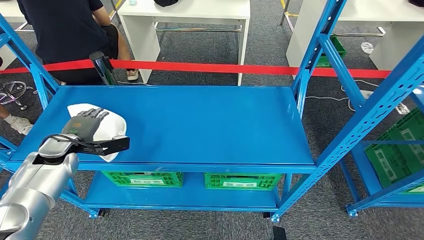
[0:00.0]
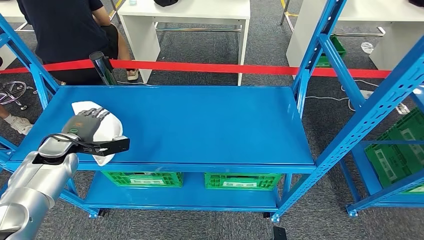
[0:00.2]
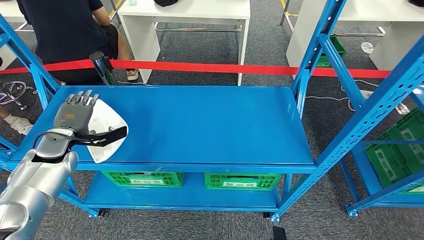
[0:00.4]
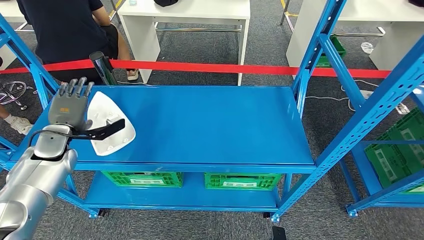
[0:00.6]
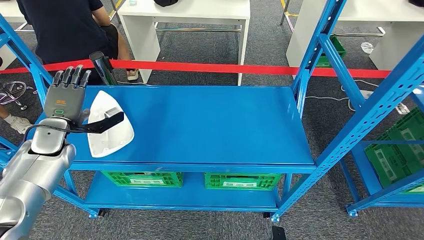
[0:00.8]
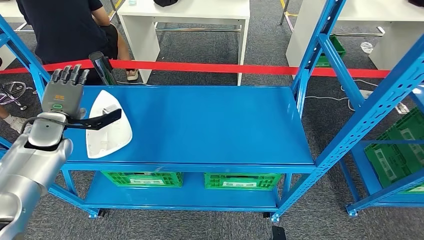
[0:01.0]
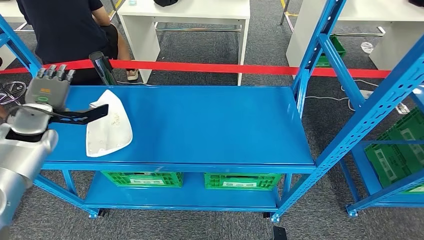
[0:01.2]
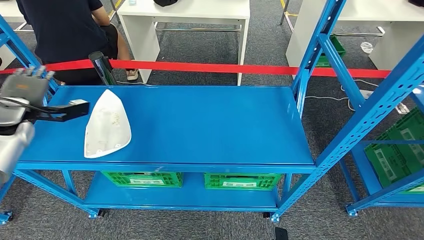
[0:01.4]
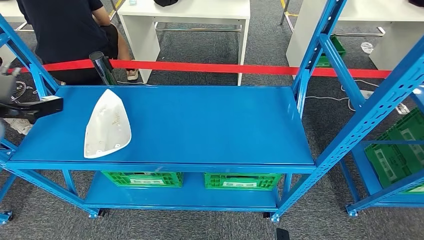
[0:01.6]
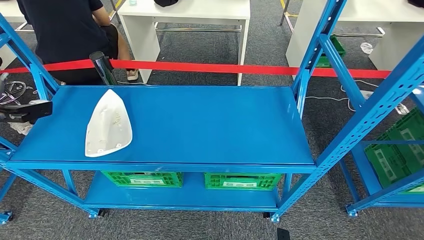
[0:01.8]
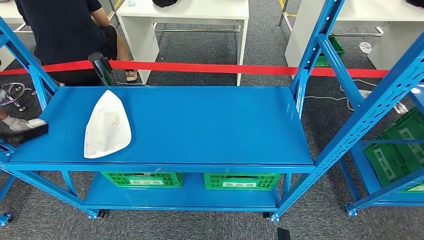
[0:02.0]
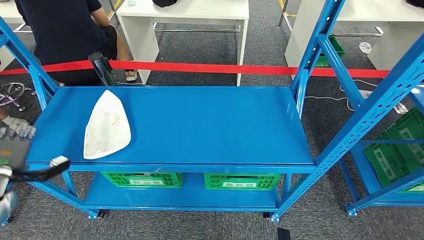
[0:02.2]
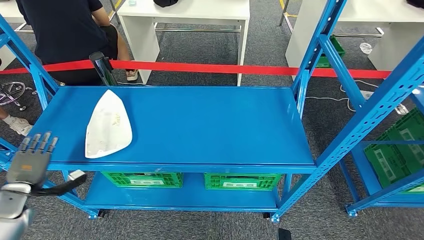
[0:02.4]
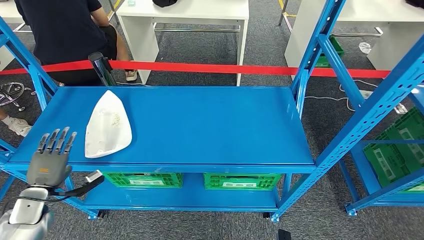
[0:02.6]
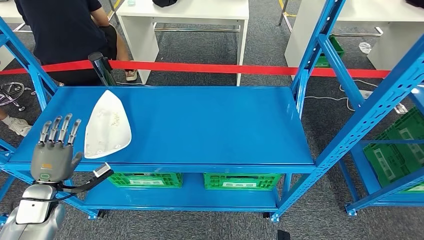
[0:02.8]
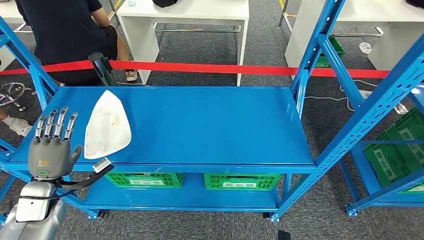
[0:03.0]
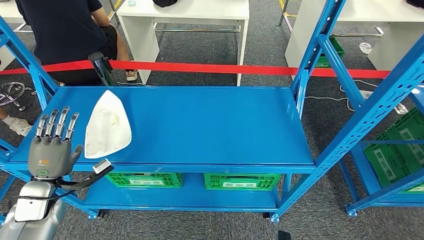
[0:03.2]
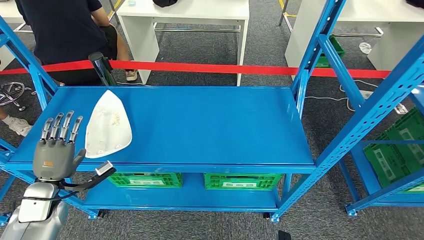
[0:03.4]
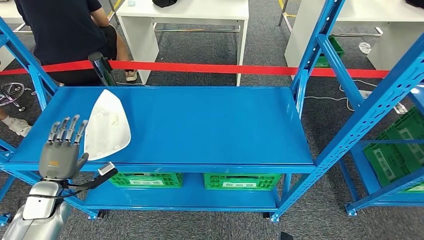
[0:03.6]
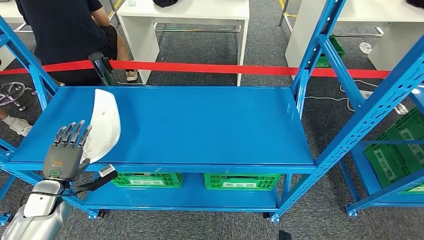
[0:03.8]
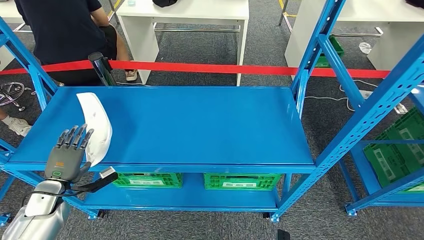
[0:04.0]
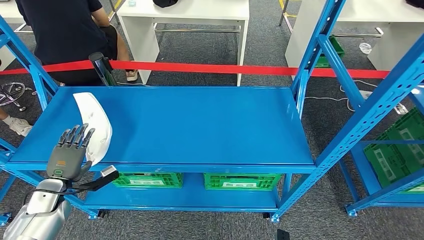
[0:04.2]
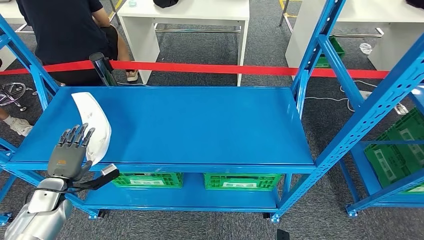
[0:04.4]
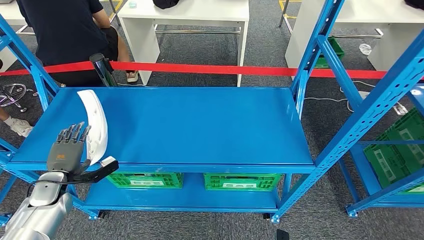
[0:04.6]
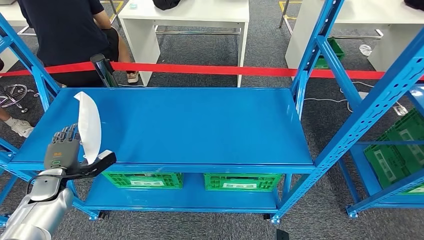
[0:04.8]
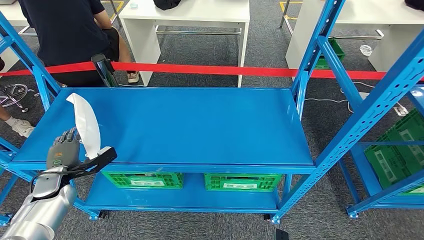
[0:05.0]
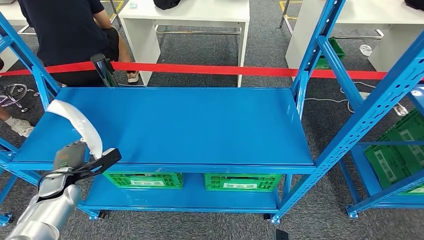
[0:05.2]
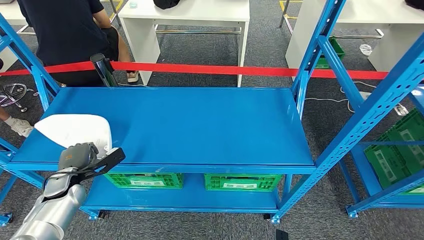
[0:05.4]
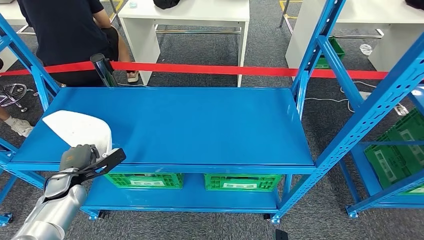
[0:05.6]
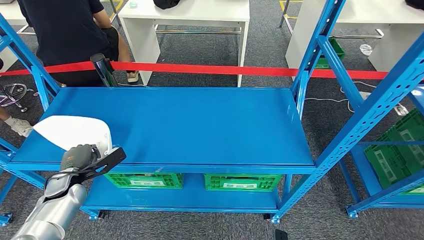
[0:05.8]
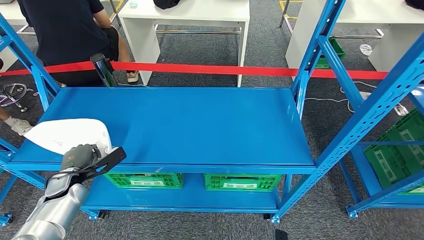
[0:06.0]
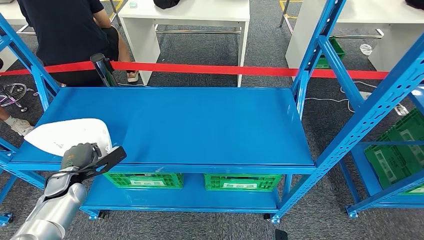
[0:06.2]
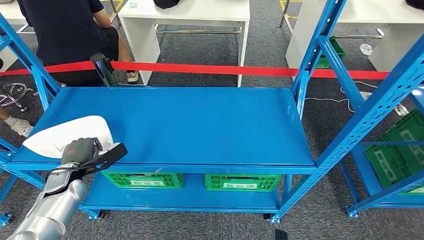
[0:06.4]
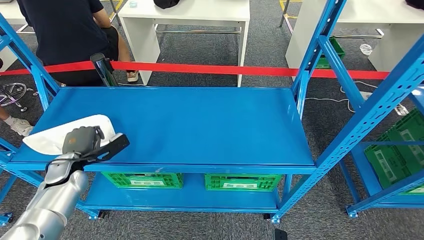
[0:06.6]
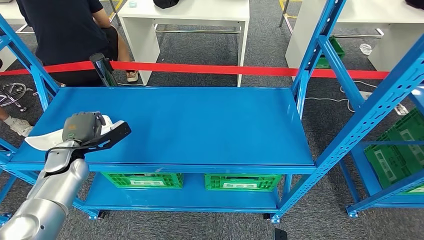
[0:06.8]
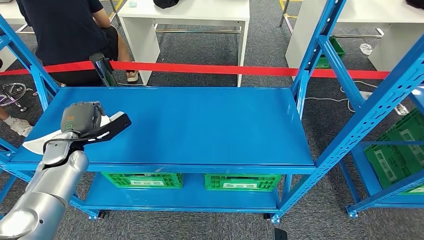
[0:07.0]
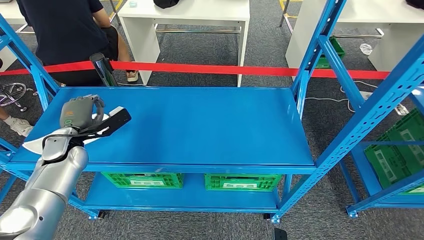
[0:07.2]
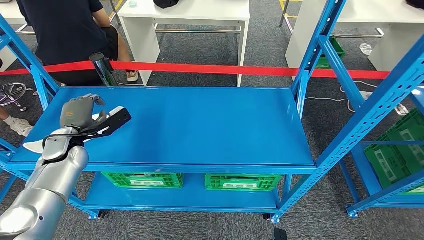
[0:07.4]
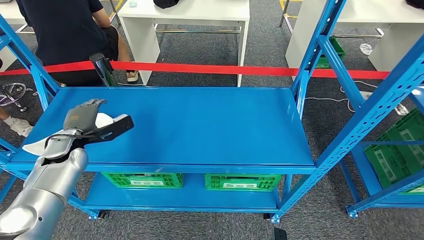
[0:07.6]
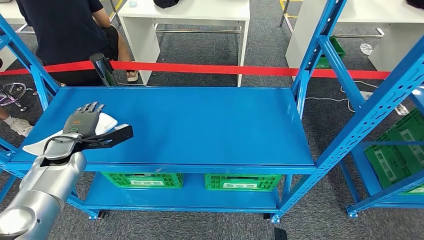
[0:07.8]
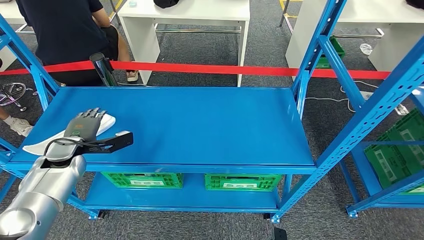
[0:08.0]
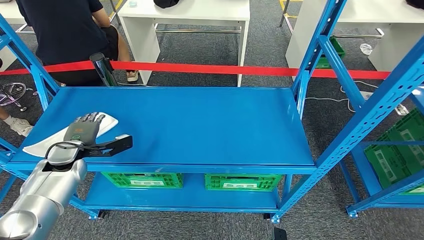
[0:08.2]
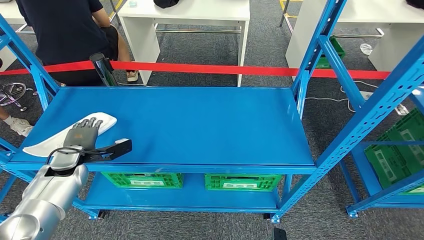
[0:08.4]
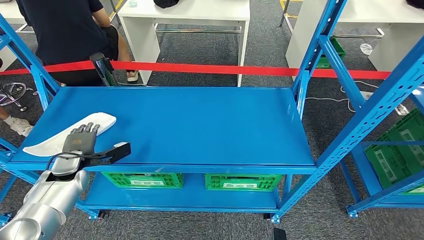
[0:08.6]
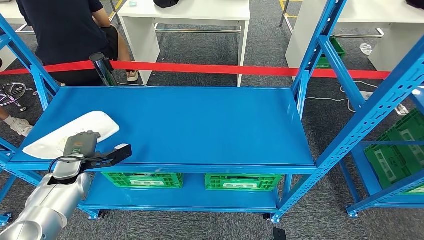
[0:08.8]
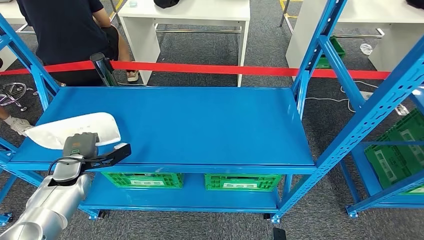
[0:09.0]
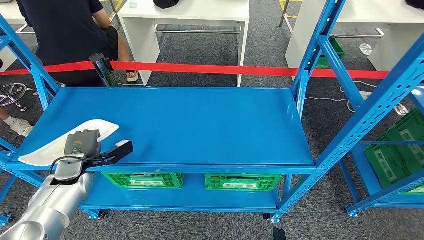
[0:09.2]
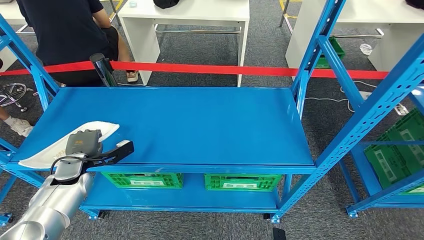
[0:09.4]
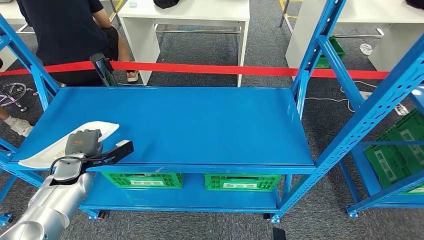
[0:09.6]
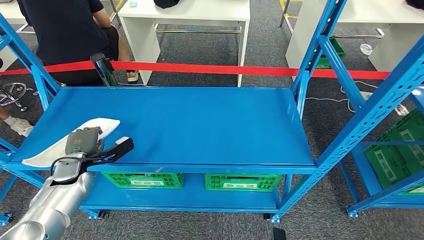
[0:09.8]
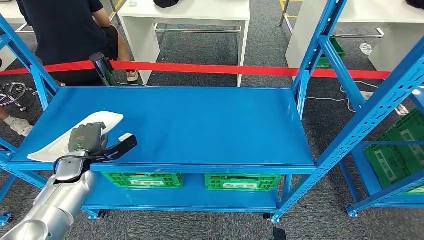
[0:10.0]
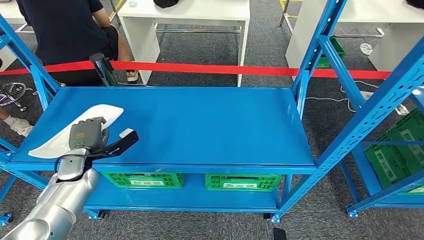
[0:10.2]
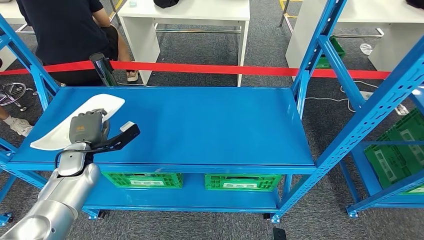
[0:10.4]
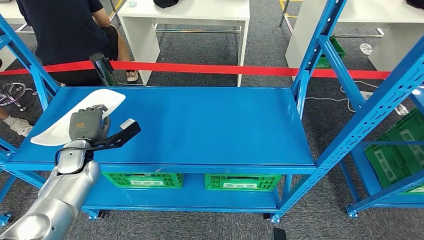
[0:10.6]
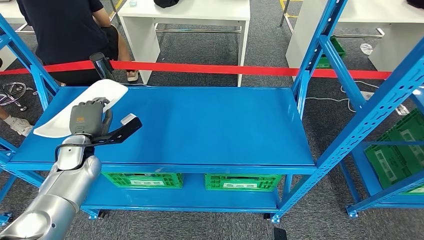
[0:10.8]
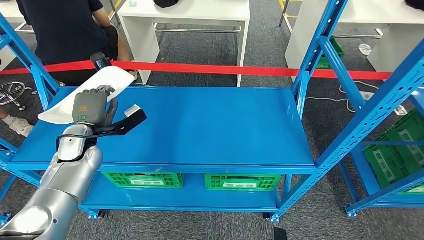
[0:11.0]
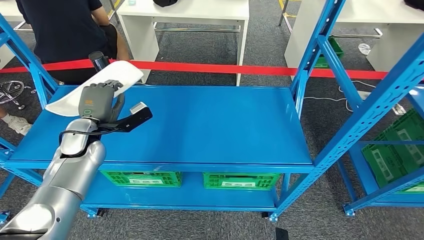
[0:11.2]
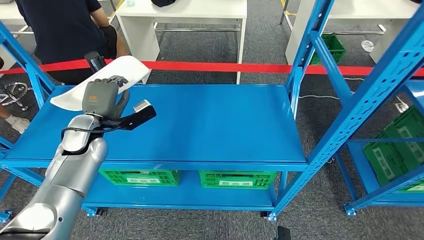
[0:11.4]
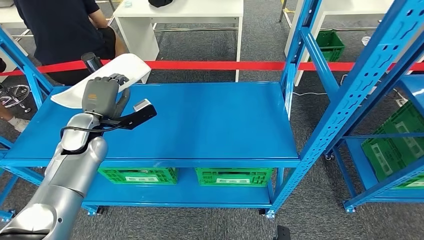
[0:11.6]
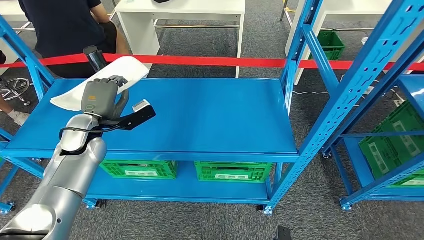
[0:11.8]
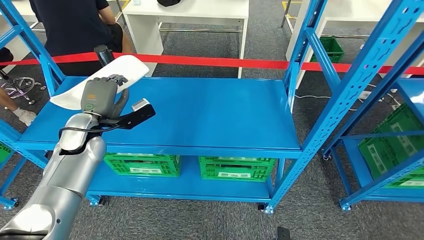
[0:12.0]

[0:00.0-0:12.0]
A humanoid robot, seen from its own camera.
Step, 0:00.0 to 0:11.8: Pick up the small component from the shelf.
0:00.0 to 0:01.6: The left hand goes some 15 cm upward and to the left.
0:01.6 to 0:03.0: The left hand heads downward and backward, covering about 25 cm.
0:03.0 to 0:04.4: The left hand changes place by roughly 5 cm.
0:04.4 to 0:06.0: The left hand moves about 5 cm.
0:06.0 to 0:07.6: The left hand shifts some 10 cm upward and forward.
0:07.6 to 0:09.0: The left hand travels downward by roughly 5 cm.

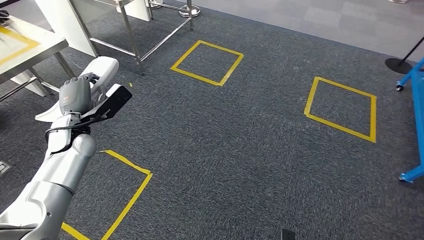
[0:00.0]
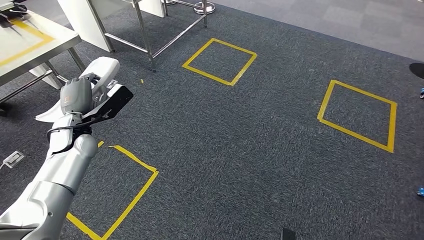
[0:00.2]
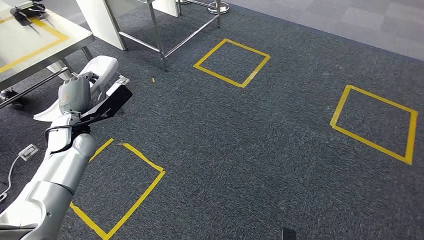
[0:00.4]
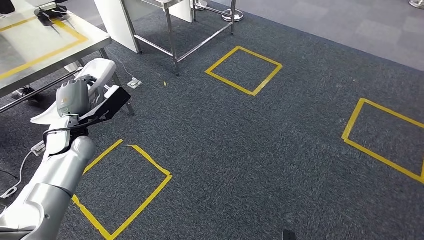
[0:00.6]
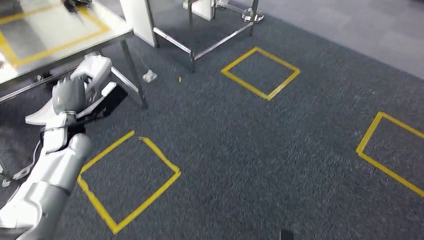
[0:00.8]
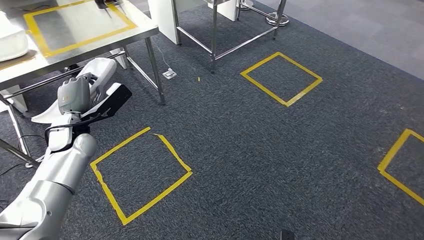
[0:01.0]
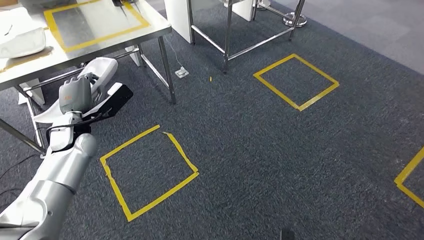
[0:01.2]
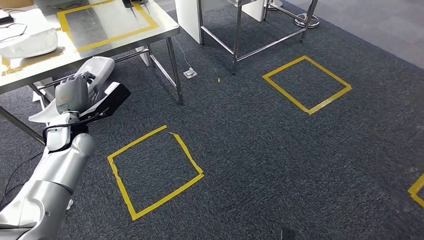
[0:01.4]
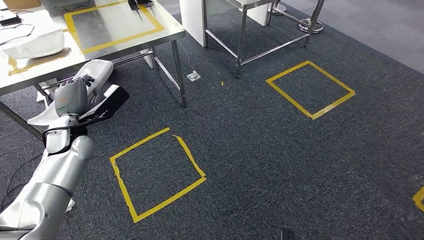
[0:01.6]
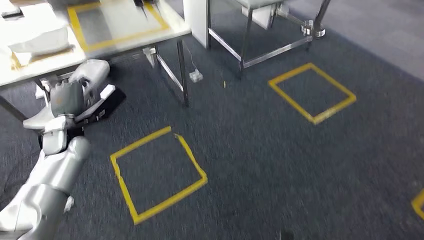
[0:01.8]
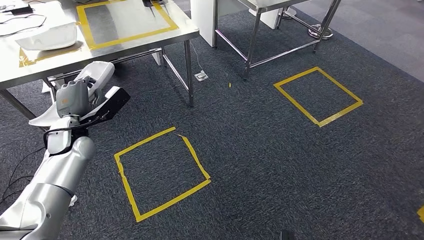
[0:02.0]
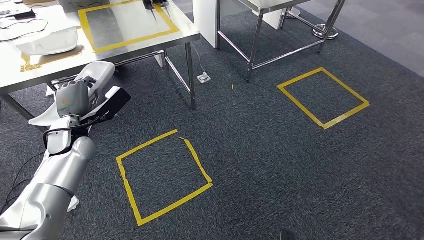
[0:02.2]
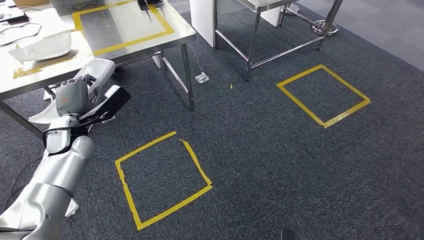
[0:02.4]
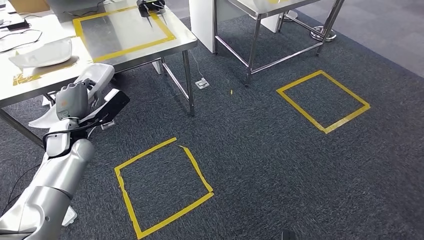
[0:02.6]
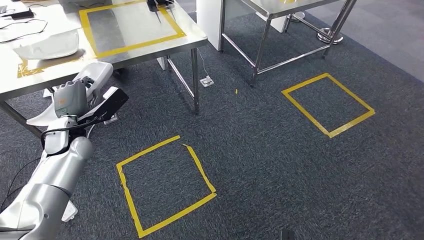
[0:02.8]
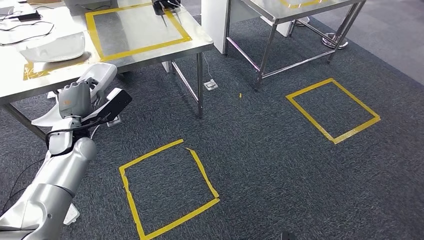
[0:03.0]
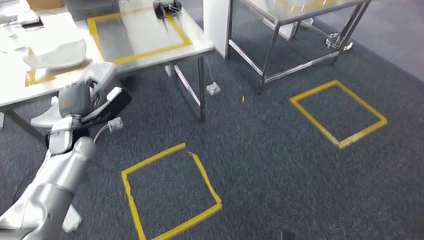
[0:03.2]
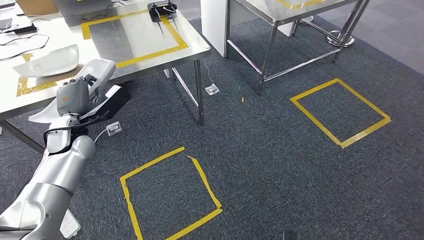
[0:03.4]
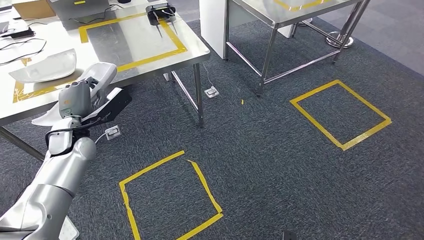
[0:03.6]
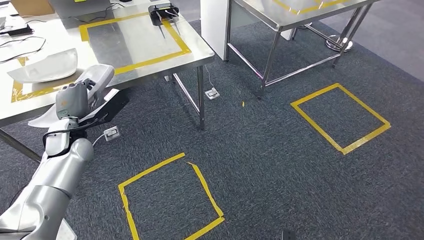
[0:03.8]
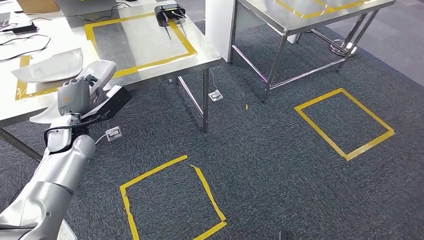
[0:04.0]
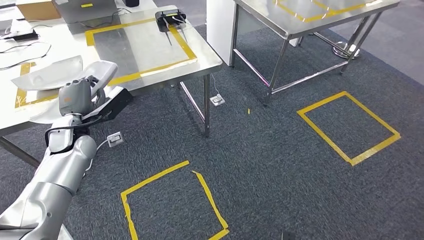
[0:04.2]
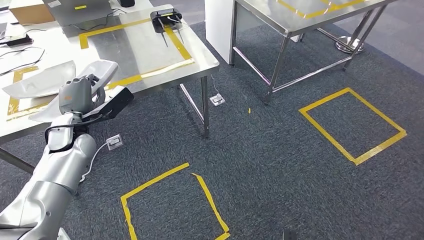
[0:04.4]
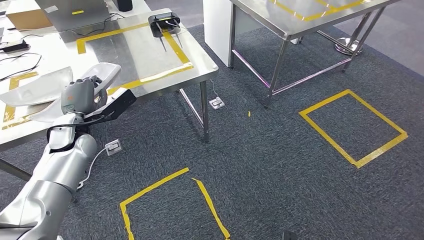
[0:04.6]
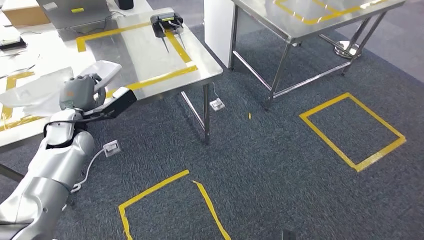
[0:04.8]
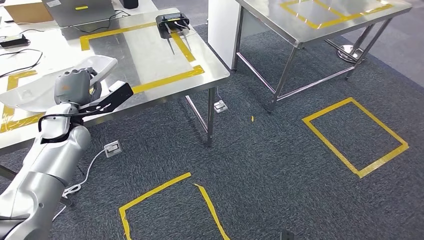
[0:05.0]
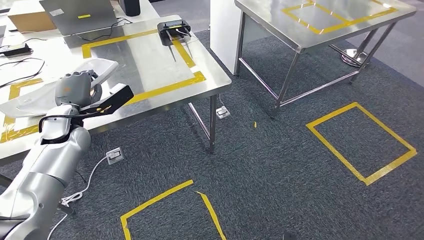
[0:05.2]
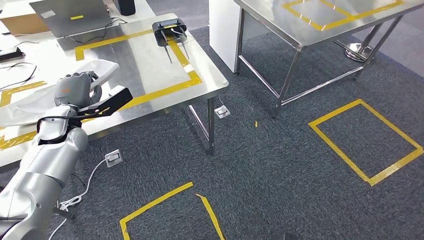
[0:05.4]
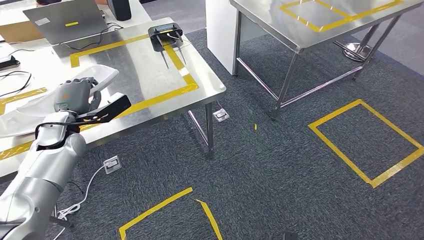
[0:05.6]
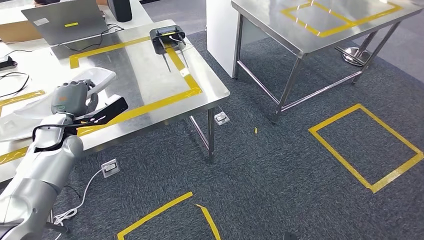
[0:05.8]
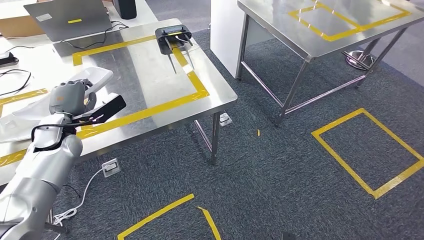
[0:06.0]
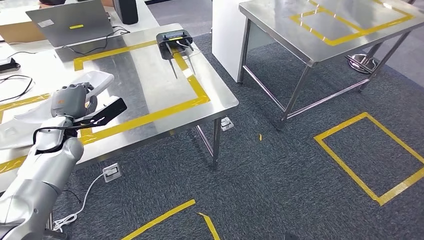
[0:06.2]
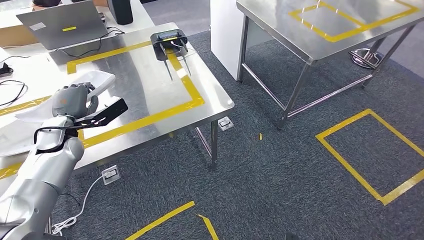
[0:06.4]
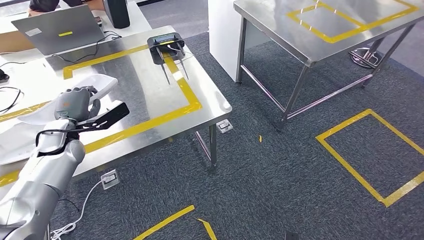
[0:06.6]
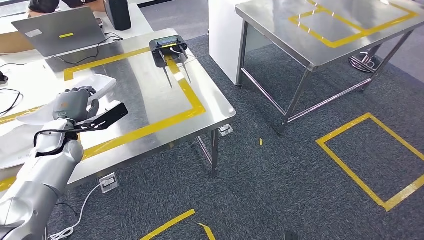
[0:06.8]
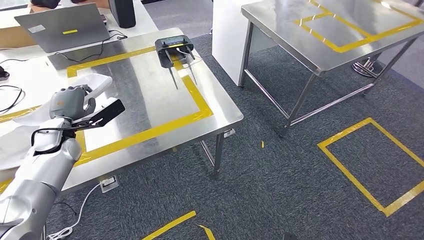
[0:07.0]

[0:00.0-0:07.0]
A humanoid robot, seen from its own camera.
Step, 0:00.0 to 0:06.2: Move the small component to the workbench.
